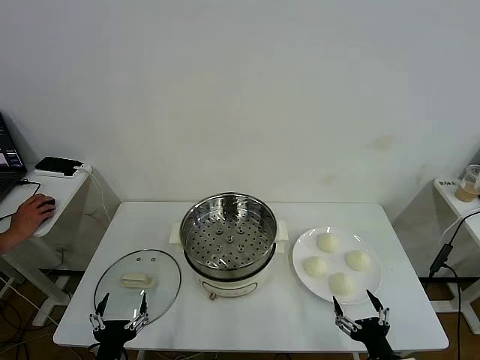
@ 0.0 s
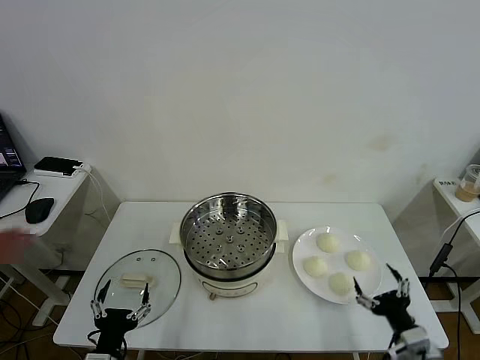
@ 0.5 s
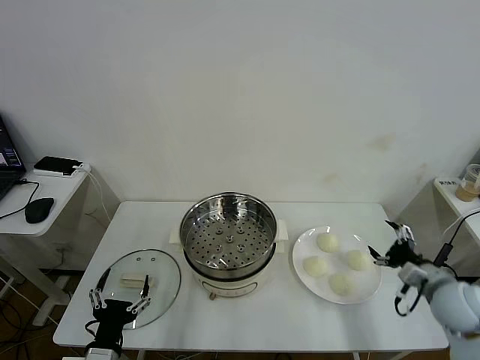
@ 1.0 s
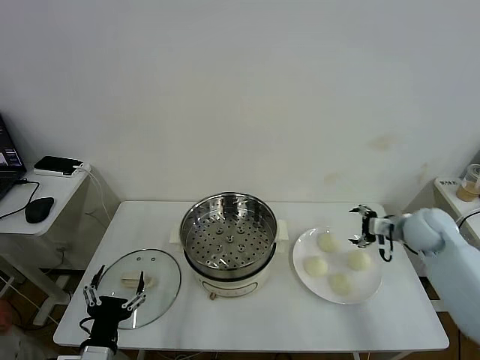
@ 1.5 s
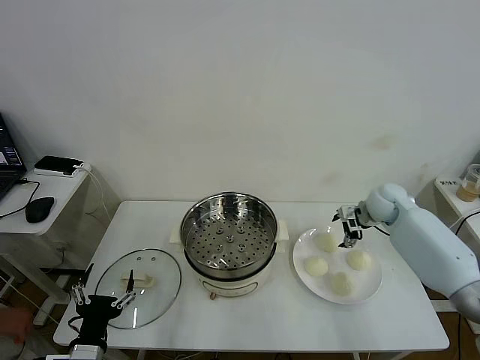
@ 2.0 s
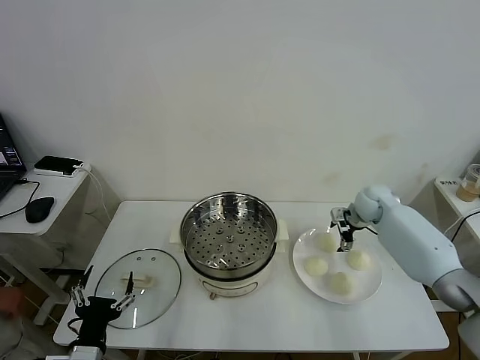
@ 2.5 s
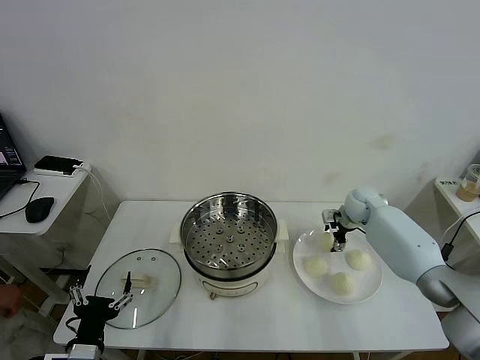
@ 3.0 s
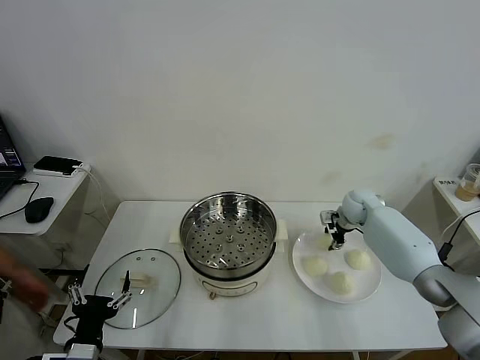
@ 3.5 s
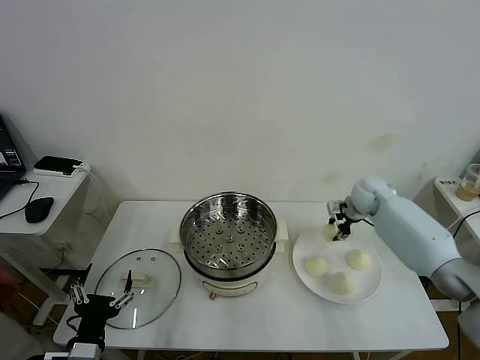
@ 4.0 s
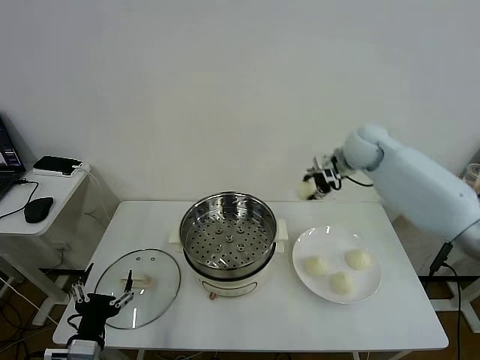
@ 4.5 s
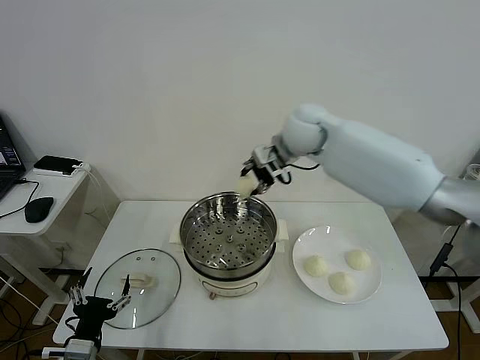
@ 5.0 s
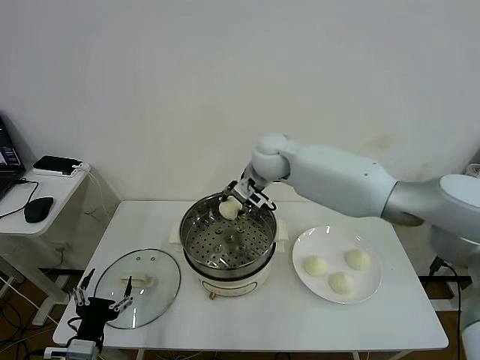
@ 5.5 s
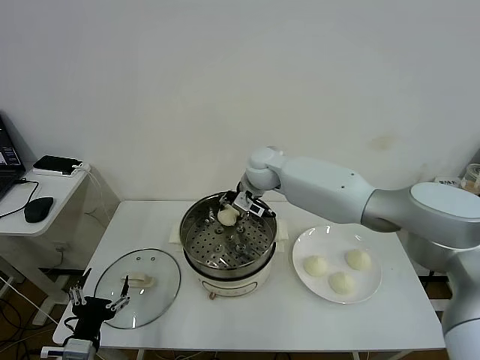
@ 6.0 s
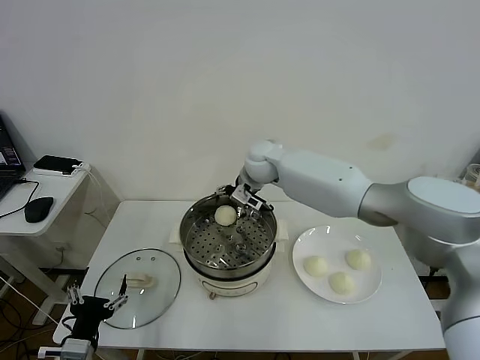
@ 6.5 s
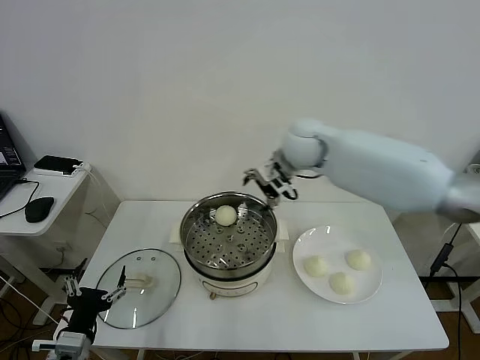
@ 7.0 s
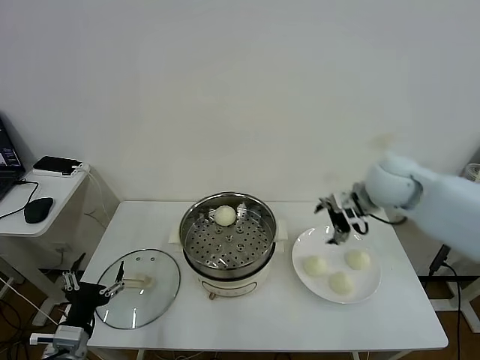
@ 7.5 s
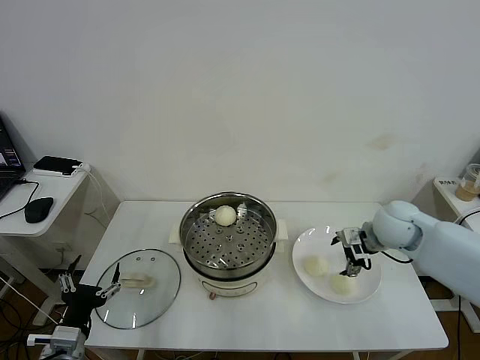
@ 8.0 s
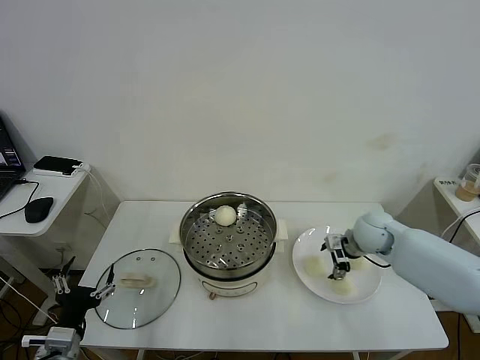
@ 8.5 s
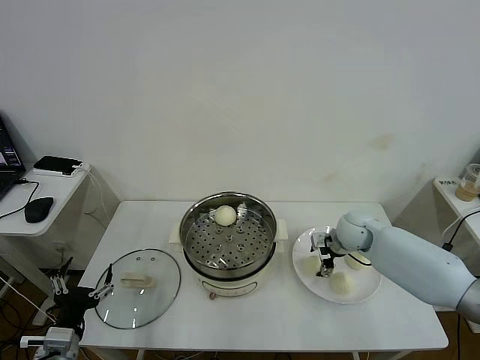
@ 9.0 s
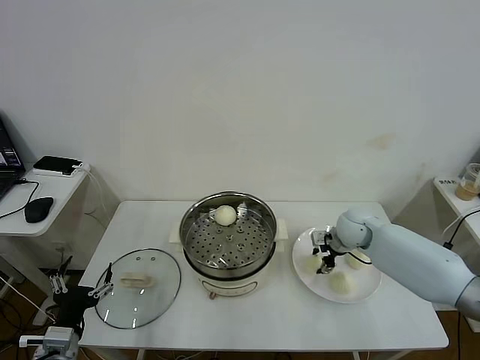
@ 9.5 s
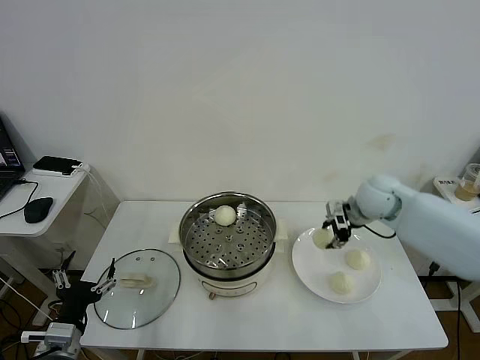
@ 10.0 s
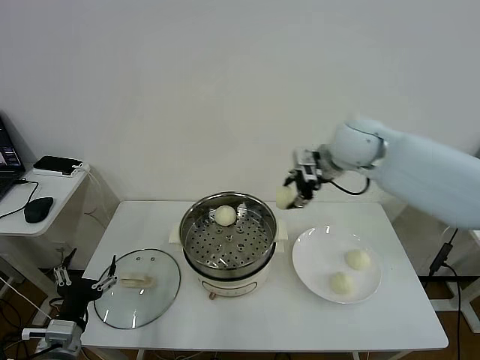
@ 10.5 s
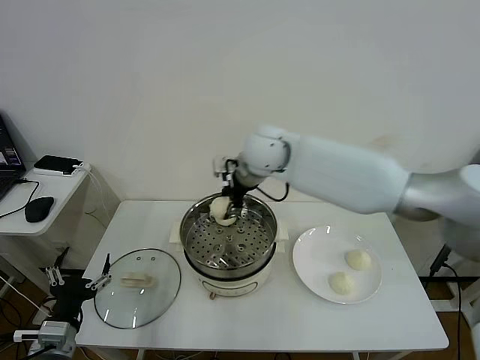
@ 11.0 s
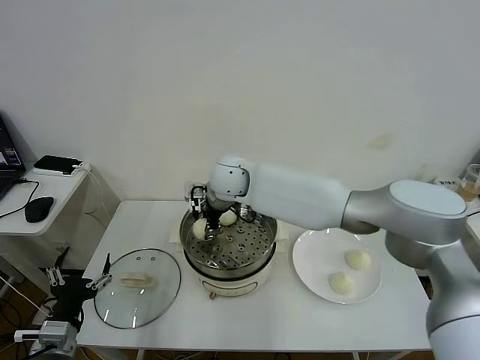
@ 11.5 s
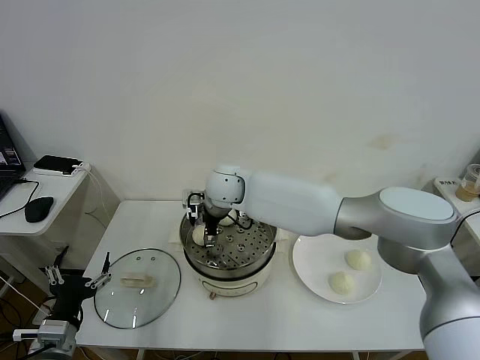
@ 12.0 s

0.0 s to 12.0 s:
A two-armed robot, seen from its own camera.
Task of the whole recording: take steamed baozi put them in steamer then cover it.
Step, 0.0 to 3.0 s: Grasp the baozi in the plate with right gripper.
Step, 3.5 to 6.0 s: Place the baozi on the steamer with right gripper.
Step, 7.0 to 9.5 s: Grasp the baozi in the plate with right gripper.
2.0 to 4.0 s: The right gripper closes its fingers.
4.0 to 6.0 s: The right gripper goes some 30 cm to the left.
6.0 to 8.0 s: The right gripper goes some 30 cm to the right and backward, and opens up.
8.0 to 10.0 s: The right gripper goes roughly 5 cm forward, moves about 10 cm downward and comes back, and closes.
10.0 to 12.0 s: The right gripper moves to the left, roughly 35 cm, and opens.

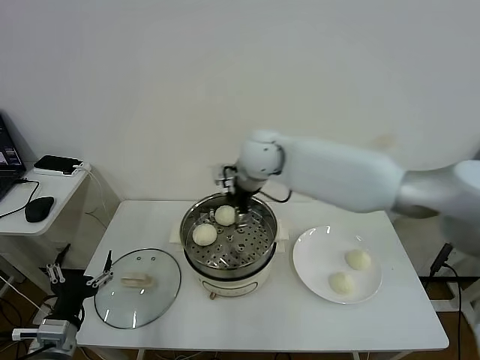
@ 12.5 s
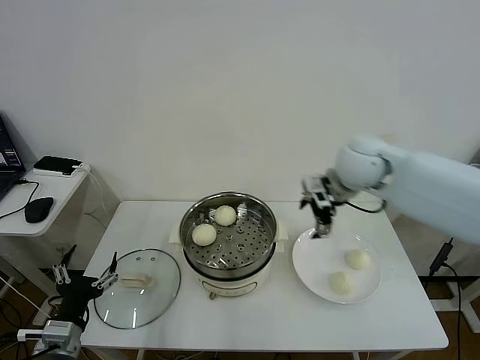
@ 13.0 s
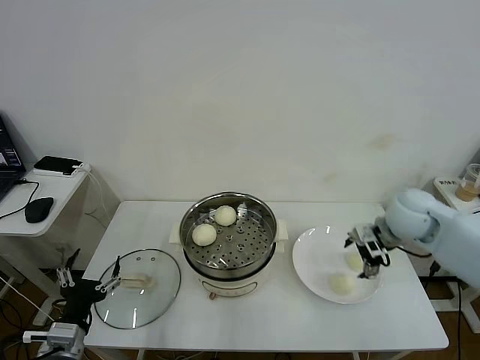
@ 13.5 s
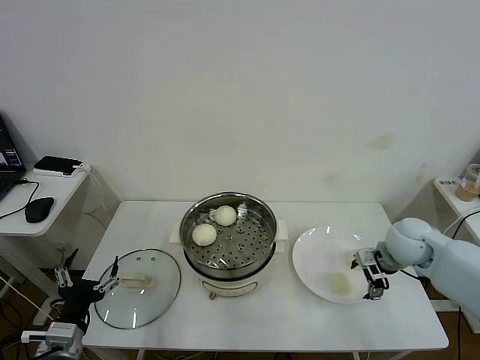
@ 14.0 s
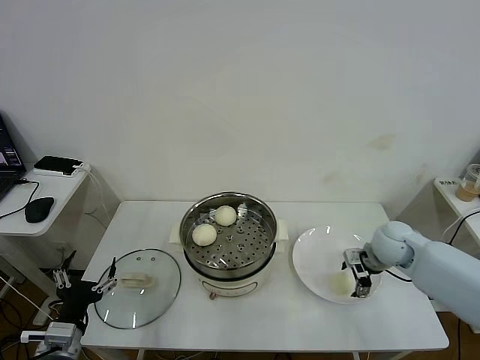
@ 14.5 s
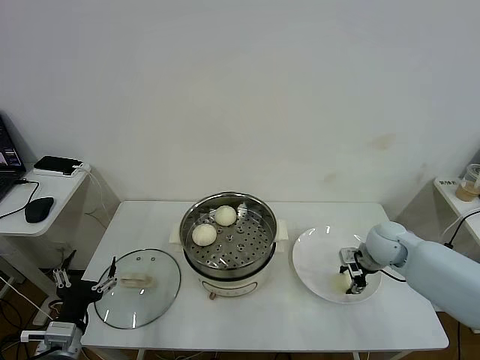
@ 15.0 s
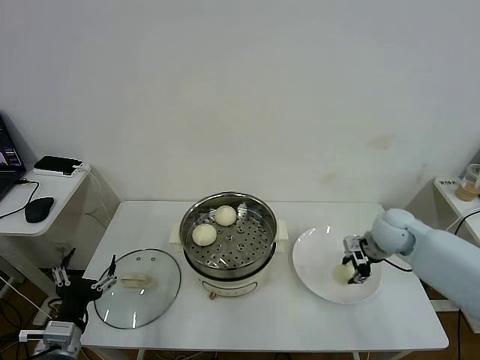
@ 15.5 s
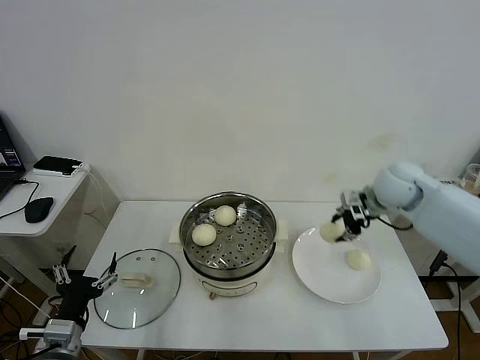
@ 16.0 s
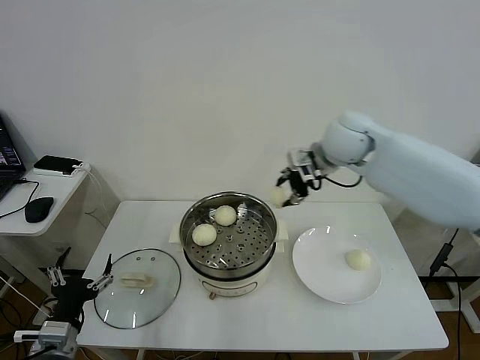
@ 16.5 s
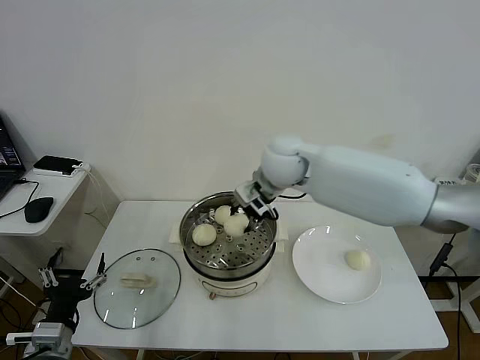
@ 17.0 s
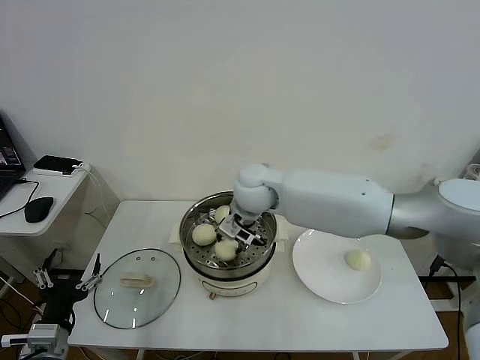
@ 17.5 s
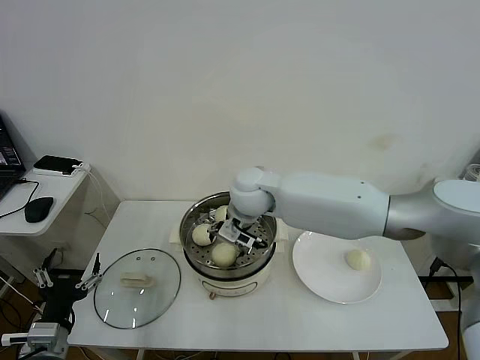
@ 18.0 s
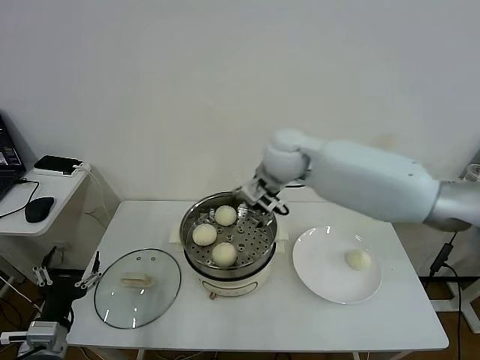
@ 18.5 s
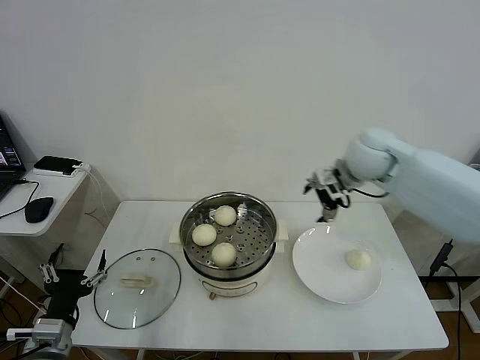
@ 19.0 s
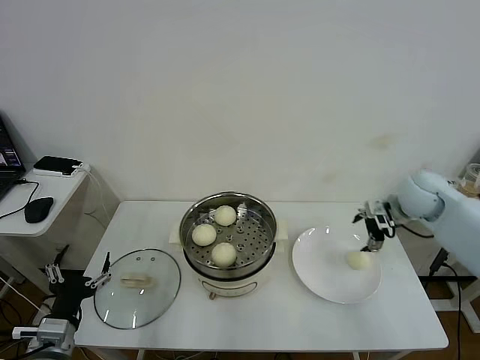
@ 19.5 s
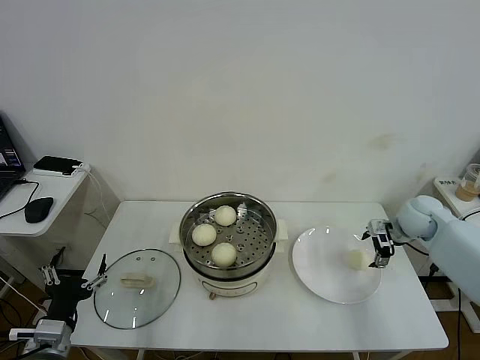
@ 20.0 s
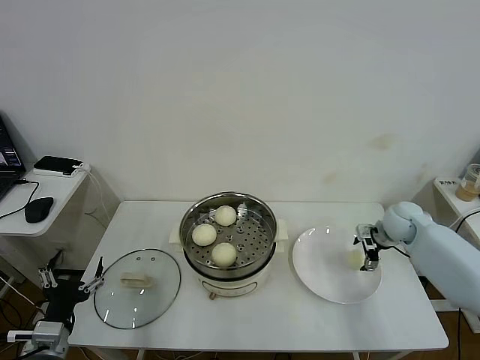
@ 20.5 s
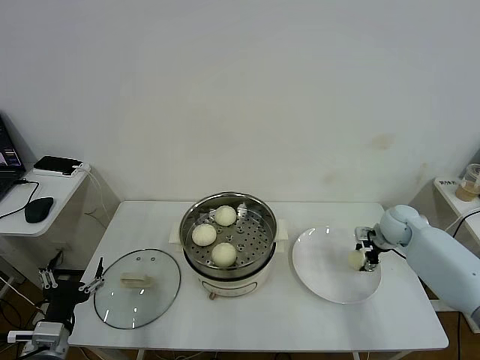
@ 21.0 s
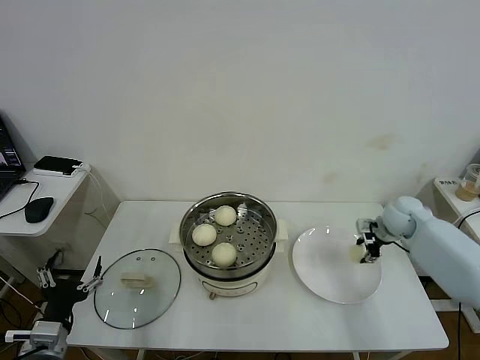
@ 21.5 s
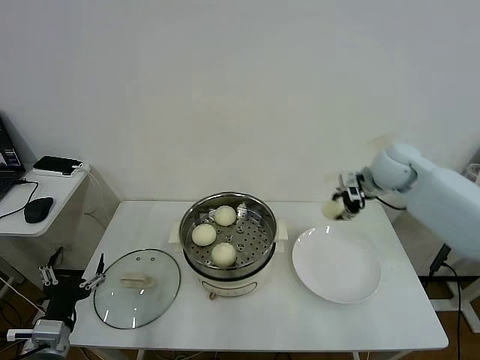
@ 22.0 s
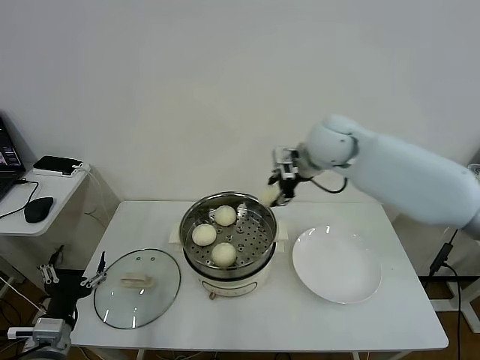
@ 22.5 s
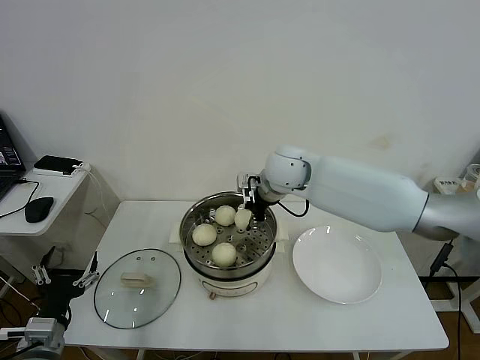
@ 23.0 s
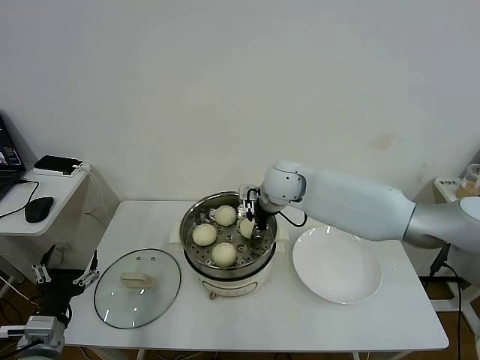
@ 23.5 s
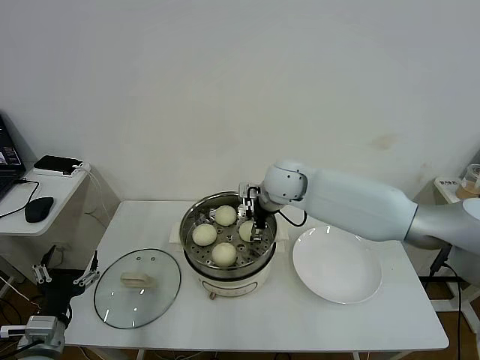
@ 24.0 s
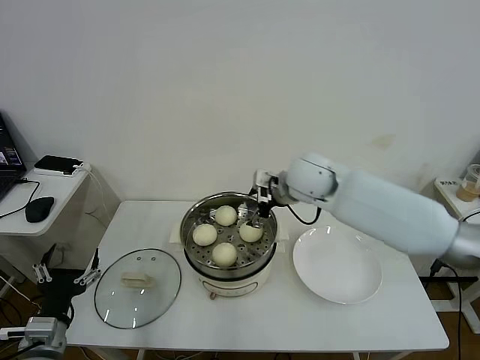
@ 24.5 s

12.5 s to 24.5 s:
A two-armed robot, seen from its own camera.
Task of the whole recording: take steamed baozi put them in steamer then cover it.
Step, 12.5 to 15.0 s: Grasp the baozi in the plate with right gripper.
Step, 15.5 to 18.0 s: Place the baozi on the steamer with right gripper.
Step, 18.5 to 21.0 s: Grasp the baozi in the plate with right gripper.
Step, 21.5 to 24.0 s: Place the baozi on the steamer with right gripper.
12.5 to 14.5 s: The right gripper heads to the right and downward, covering some 35 cm.
14.5 to 16.5 s: The right gripper is displaced upward and to the left by some 25 cm, and closes its fingers.
16.5 to 18.5 s: The right gripper travels to the left by some 10 cm, and opens its fingers.
18.5 to 20.5 s: The right gripper shifts some 40 cm to the right and downward.
20.5 to 22.5 s: The right gripper shifts some 30 cm to the left and upward, and closes up.
22.5 to 24.5 s: The right gripper goes about 5 cm downward, and opens its fingers.

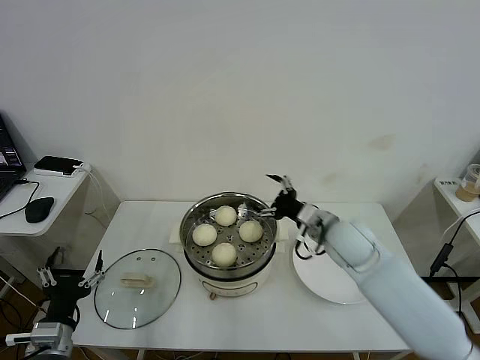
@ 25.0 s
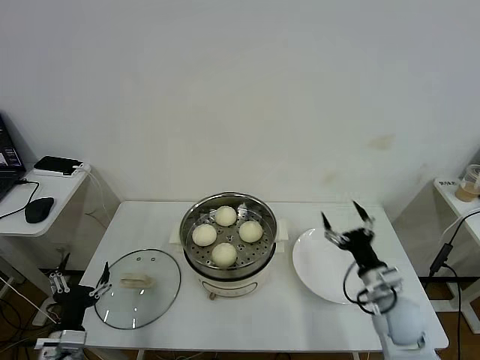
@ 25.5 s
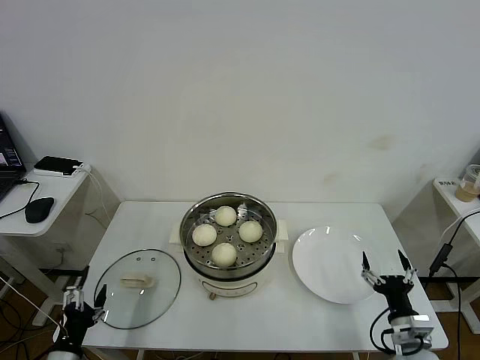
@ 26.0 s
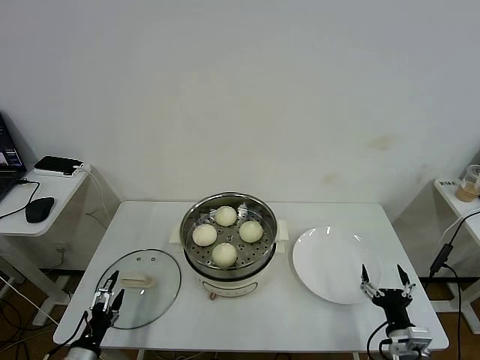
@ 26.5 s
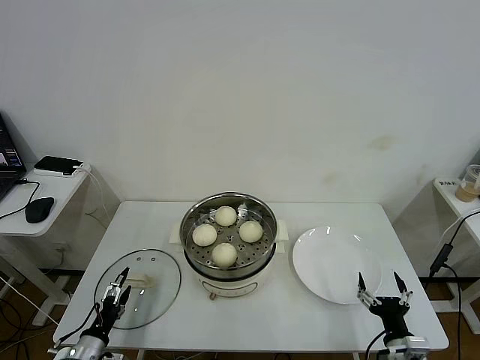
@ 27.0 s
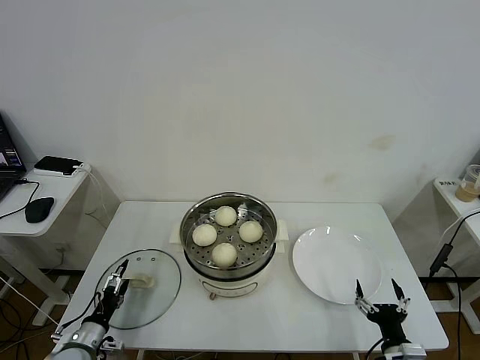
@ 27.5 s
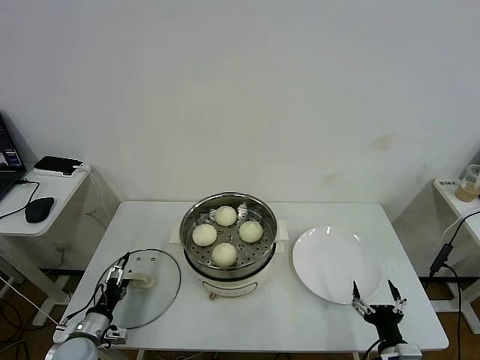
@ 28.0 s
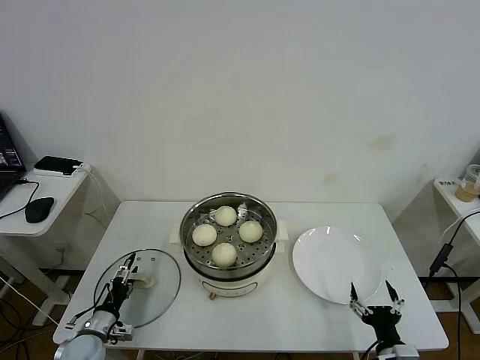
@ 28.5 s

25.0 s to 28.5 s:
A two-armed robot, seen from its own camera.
Task of the whole recording: take steamed baozi put them in steamer then cover it.
25.0 to 27.0 s: The right gripper shifts about 35 cm backward, downward and to the right. Meanwhile the left gripper shifts roughly 15 cm downward.
27.0 to 28.5 s: The left gripper heads forward, covering roughly 5 cm.
